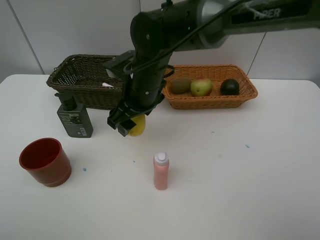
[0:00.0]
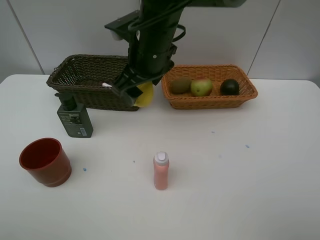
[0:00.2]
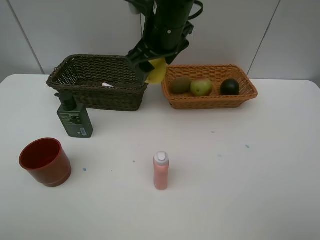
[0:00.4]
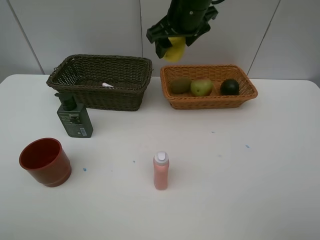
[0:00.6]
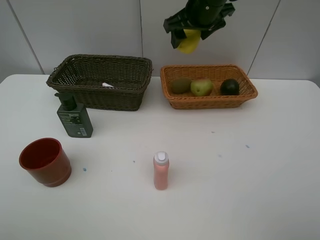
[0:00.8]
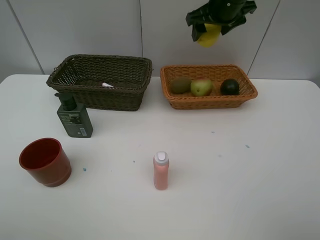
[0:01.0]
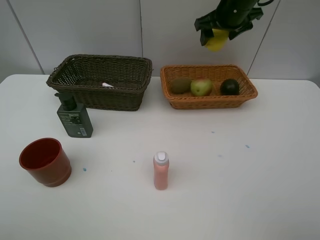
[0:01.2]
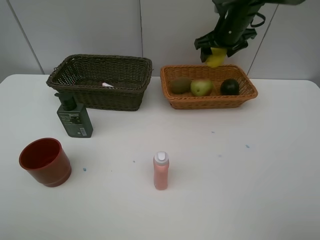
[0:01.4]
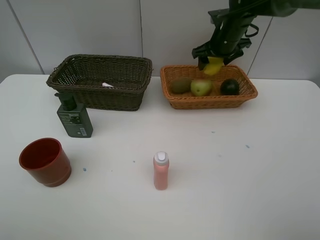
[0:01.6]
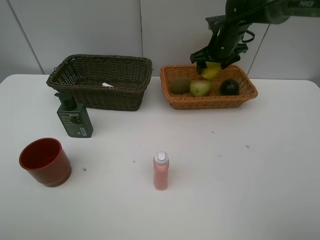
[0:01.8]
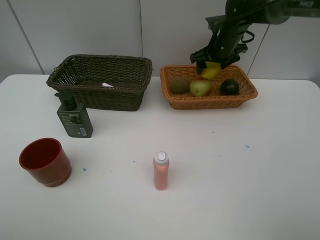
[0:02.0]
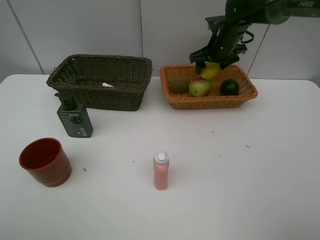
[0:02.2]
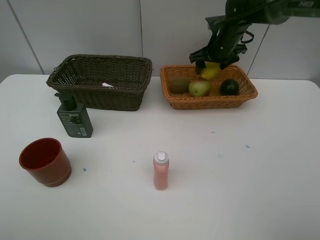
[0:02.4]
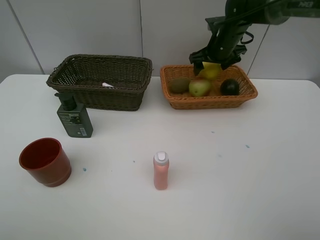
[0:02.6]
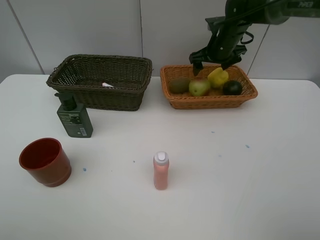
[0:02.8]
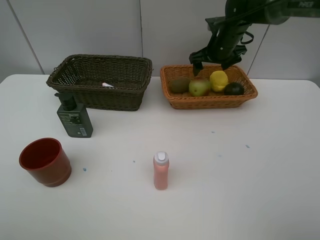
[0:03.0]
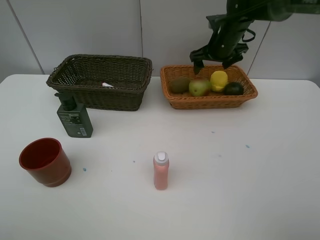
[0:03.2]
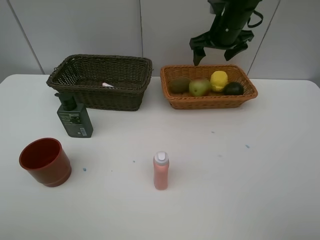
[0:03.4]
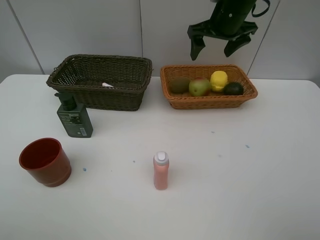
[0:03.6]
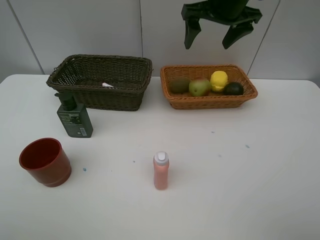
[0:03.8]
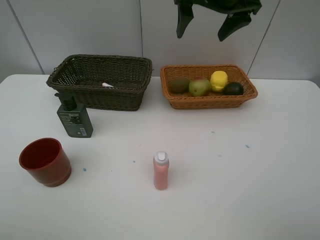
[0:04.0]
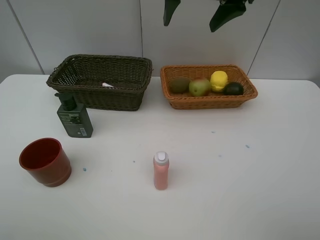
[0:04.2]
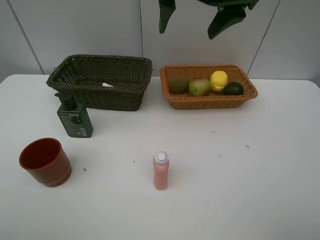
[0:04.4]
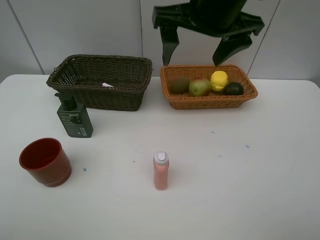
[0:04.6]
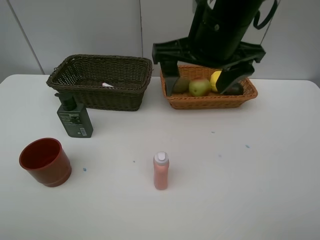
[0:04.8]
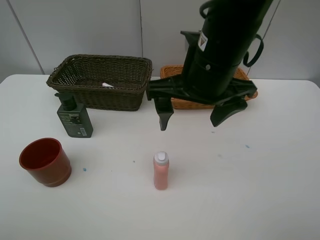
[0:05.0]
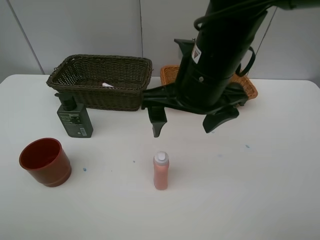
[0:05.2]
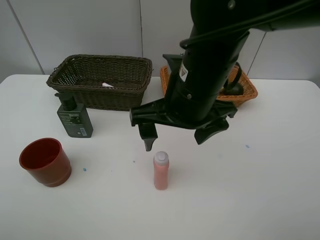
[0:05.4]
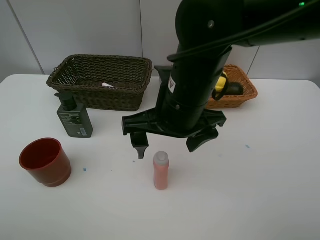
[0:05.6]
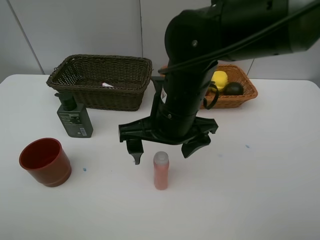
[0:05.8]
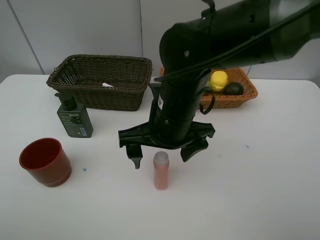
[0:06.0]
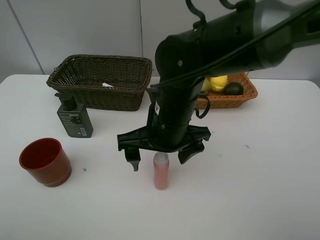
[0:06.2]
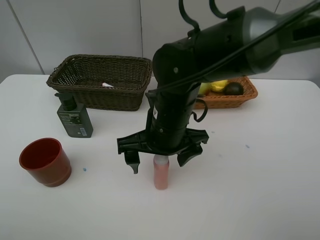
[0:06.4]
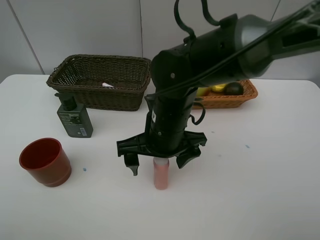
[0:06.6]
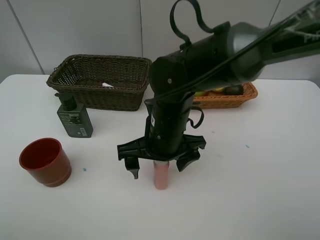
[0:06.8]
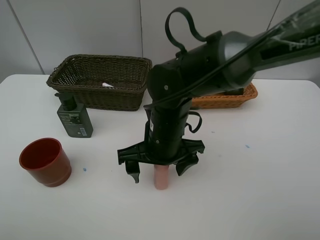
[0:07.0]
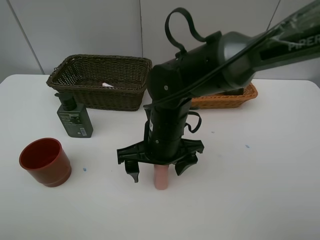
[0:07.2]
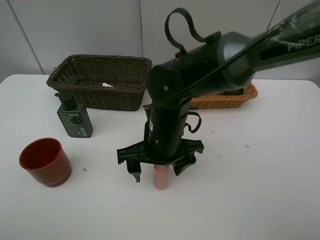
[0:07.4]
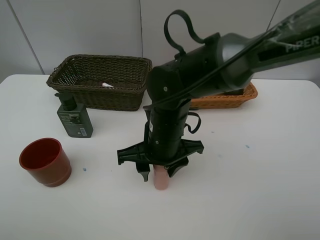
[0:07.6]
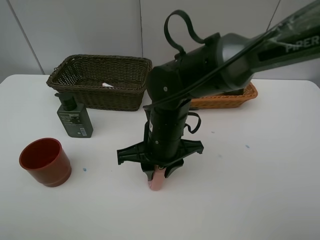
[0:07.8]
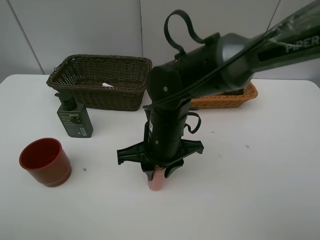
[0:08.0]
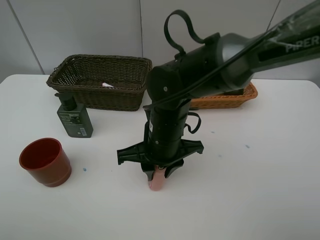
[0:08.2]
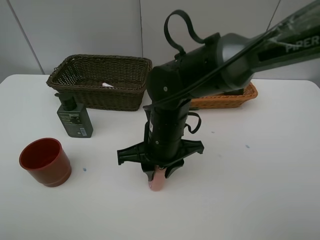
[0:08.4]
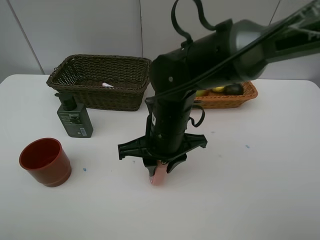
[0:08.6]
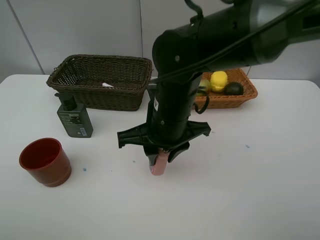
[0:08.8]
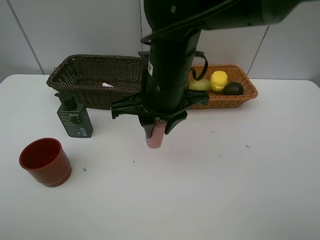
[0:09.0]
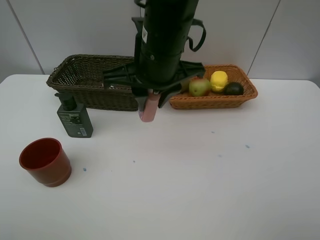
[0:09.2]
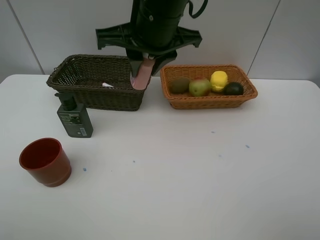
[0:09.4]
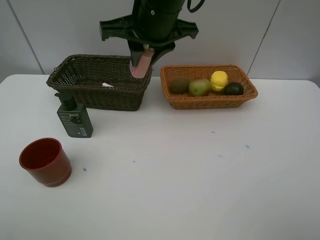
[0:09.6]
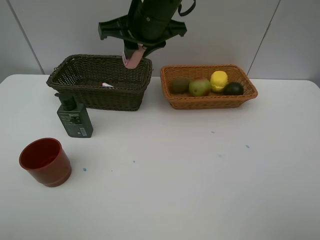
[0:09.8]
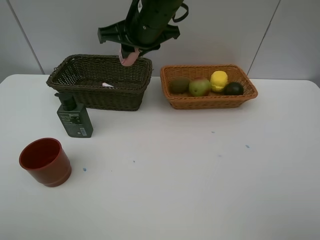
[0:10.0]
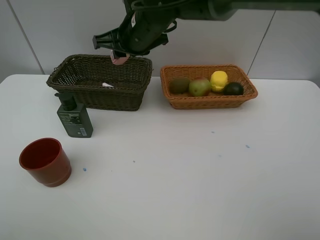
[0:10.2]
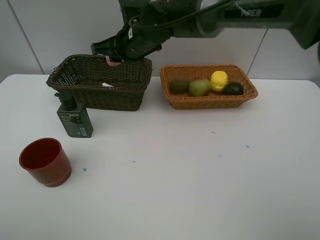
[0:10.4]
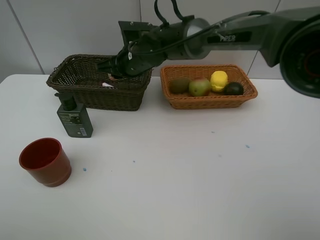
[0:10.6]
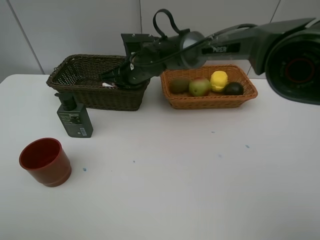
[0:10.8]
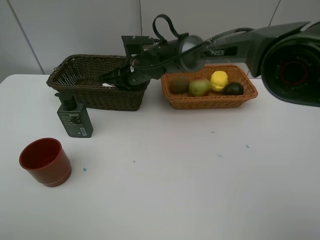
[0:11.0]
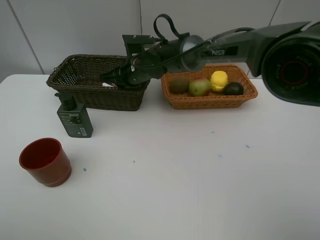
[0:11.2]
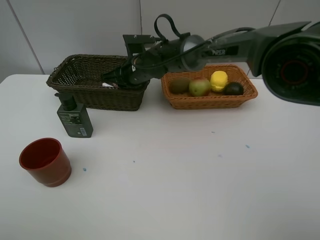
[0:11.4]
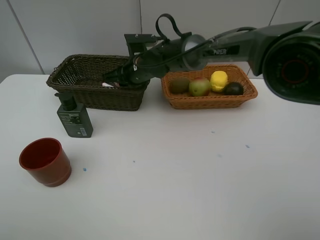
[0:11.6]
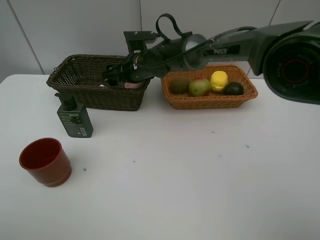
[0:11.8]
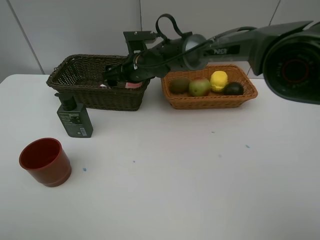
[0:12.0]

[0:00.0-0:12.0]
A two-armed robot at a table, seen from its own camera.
Task of the whole recording: Place multiple objects separately in different baskets.
Step, 0:00.0 to 0:03.2: Place the lemon in the light basket with right gripper.
Step, 0:03.4 to 0:08.8: Pick up the laundry detergent with right gripper.
0:00.0 to 0:01.6: The right gripper goes approximately 25 cm to the right and forward.
0:01.6 to 0:03.0: The two grippers keep their place.
0:03.0 to 0:04.4: The right gripper moves backward, upward and to the left, approximately 25 cm.
0:04.4 to 0:06.0: The right gripper goes roughly 20 cm downward and backward.
0:06.0 to 0:07.6: The right gripper heads downward, covering some 5 cm, and closes up.
0:07.6 to 0:09.0: The right gripper heads upward, covering some 10 cm.
0:09.0 to 0:10.4: The right gripper goes some 15 cm forward.
0:10.4 to 0:12.0: The right gripper is displaced downward by about 5 cm, and opens up.

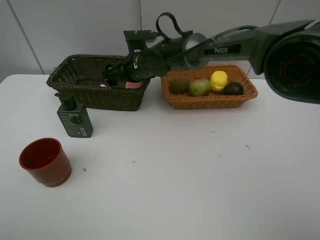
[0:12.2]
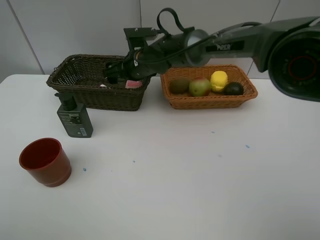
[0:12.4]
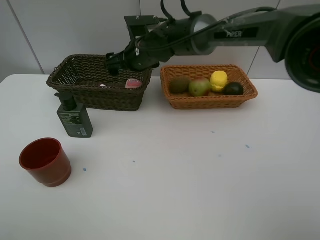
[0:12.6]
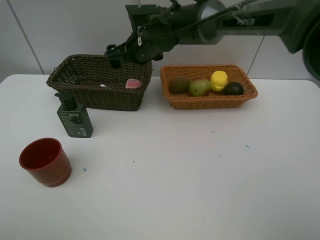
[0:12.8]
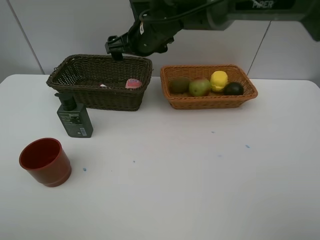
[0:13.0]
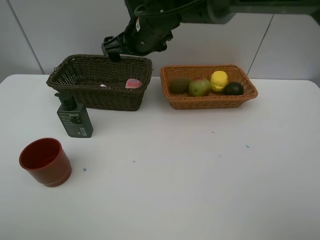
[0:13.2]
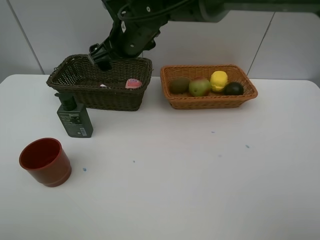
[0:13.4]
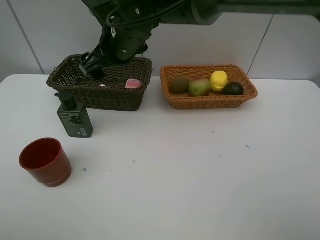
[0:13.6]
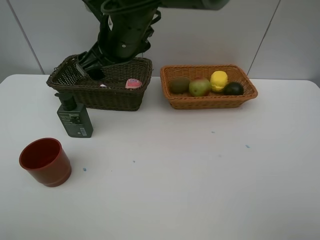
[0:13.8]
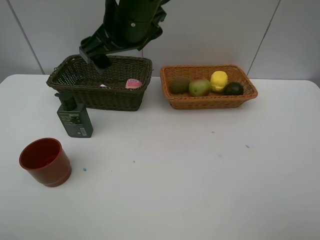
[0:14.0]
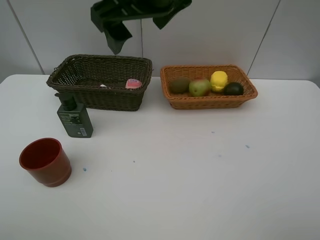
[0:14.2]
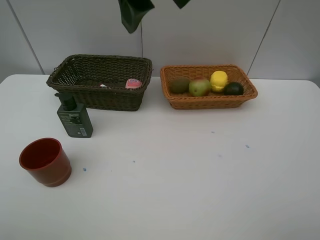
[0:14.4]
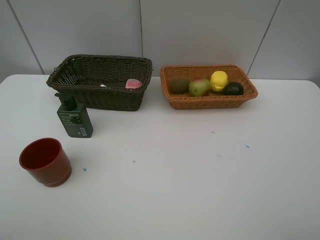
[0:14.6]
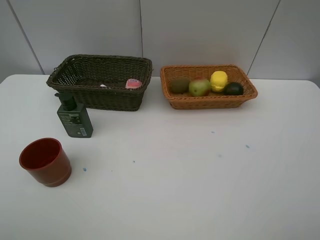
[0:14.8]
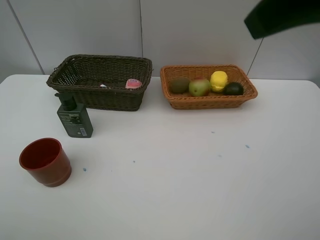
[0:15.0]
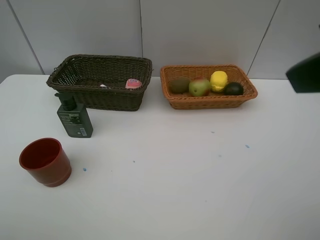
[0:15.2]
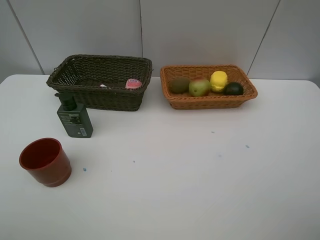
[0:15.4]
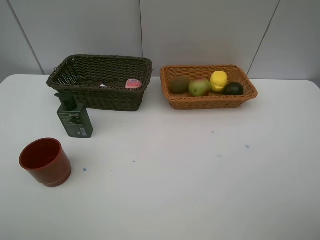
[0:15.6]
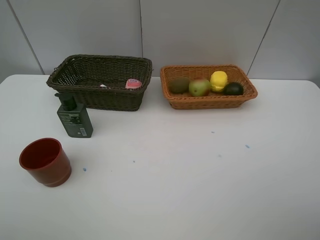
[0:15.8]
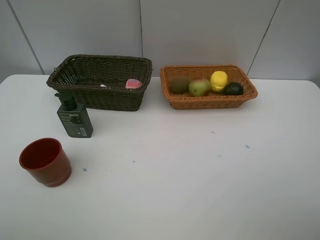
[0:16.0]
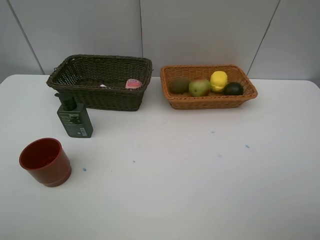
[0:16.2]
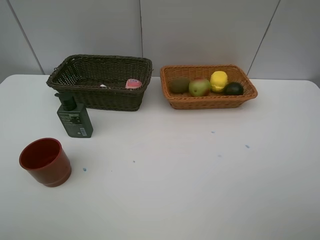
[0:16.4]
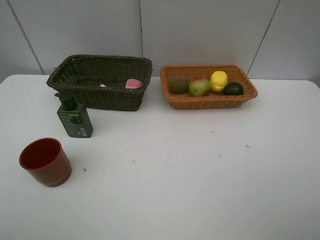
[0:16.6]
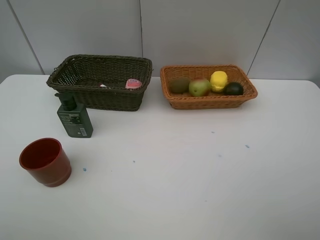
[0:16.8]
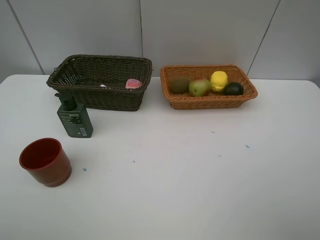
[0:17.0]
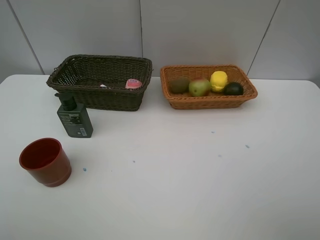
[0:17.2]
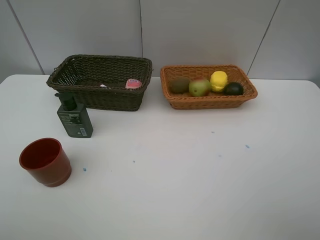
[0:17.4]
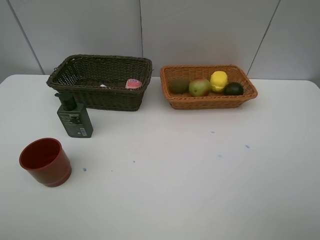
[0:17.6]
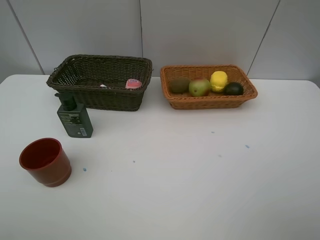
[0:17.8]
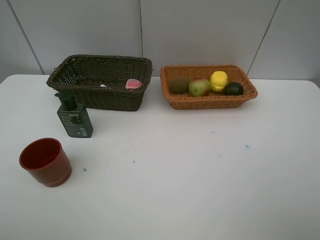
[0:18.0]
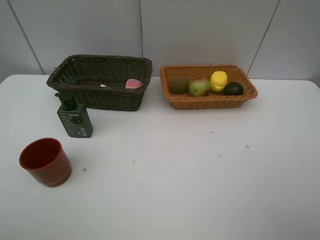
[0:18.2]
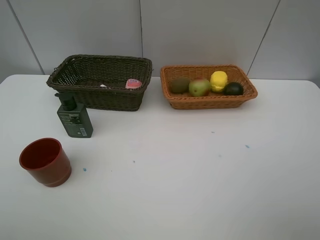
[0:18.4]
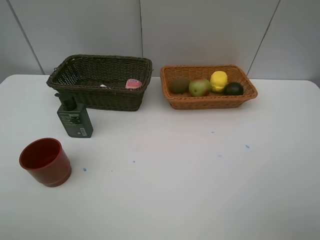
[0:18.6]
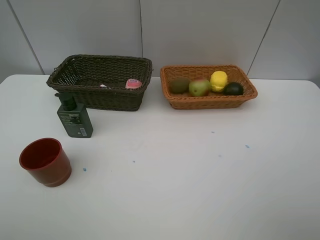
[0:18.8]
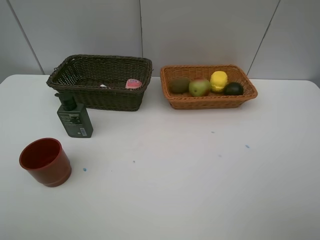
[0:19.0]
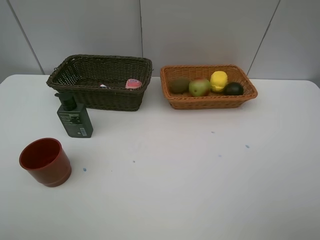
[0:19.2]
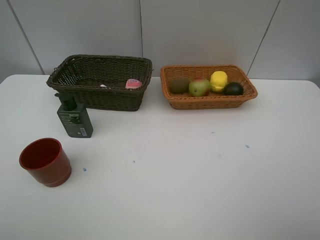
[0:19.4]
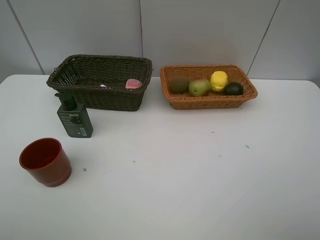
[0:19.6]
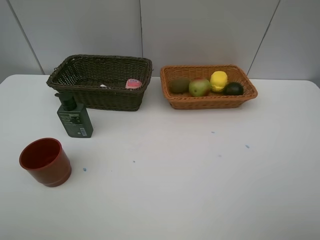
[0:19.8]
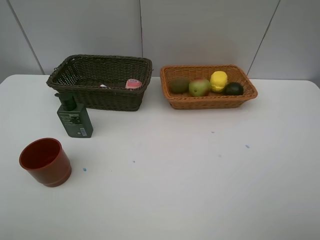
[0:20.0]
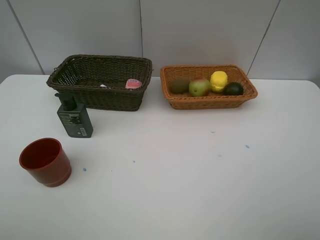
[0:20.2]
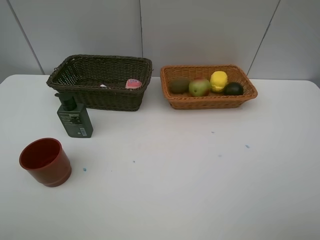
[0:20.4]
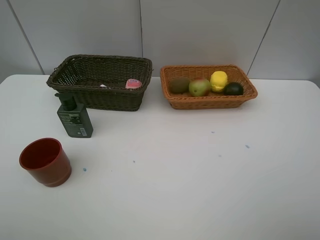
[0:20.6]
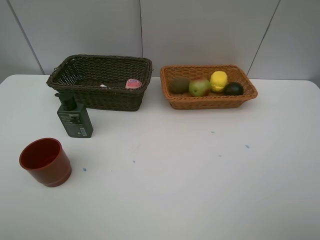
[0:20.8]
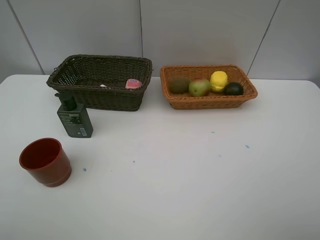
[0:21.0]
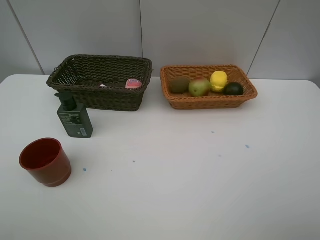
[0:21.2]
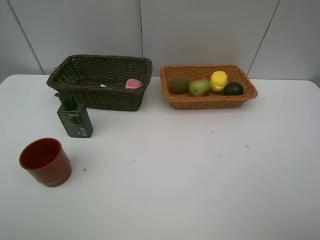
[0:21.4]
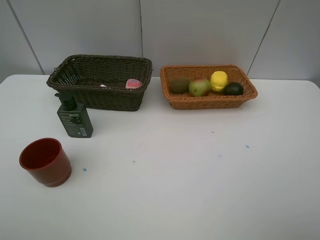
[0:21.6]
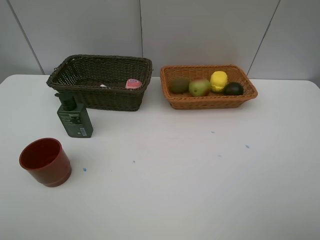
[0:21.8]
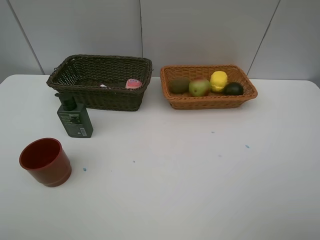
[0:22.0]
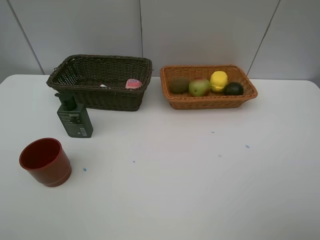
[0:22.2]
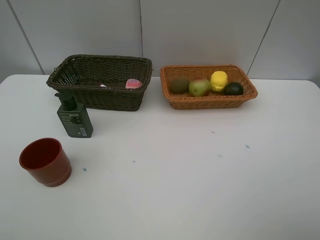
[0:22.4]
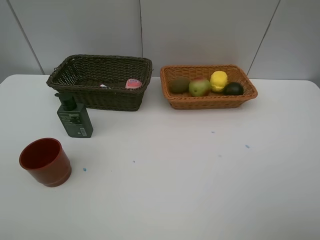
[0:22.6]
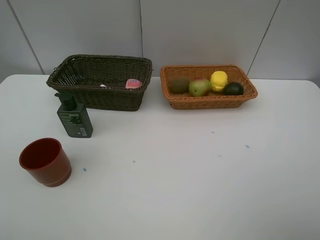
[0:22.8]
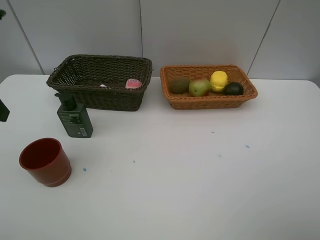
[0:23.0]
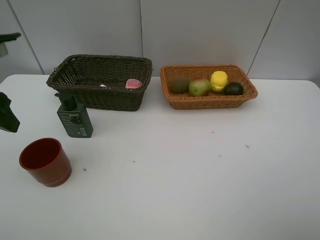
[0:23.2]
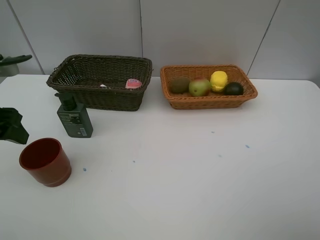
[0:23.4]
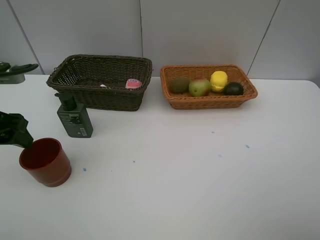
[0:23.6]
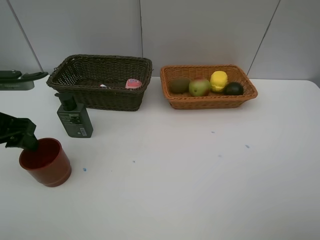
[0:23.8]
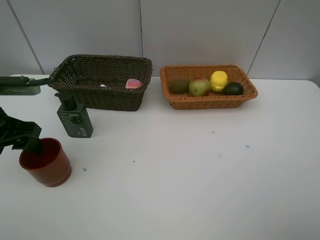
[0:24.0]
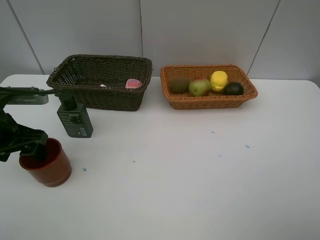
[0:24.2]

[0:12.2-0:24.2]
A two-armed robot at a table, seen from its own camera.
Task of the whole recording: Place multiple objects separately in different baskets.
0:12.2 to 0:13.8: The right gripper shifts about 15 cm upward and backward.
0:13.8 to 0:15.2: The right gripper moves to the right, backward and upward, about 35 cm.
0:15.2 to 0:16.6: The right gripper shifts some 15 cm downward, to the right and backward.
0:19.8 to 0:21.2: Neither gripper changes place.
0:22.6 to 0:24.2: The left gripper is displaced downward and forward by about 20 cm.
